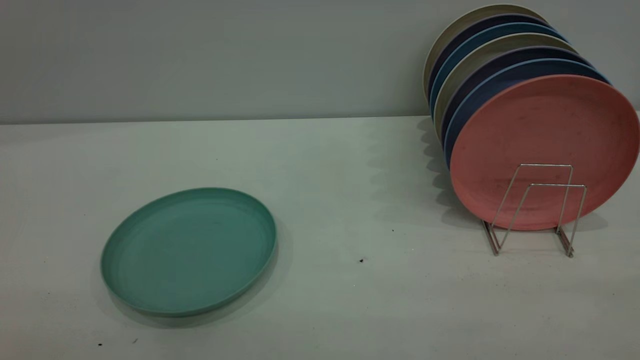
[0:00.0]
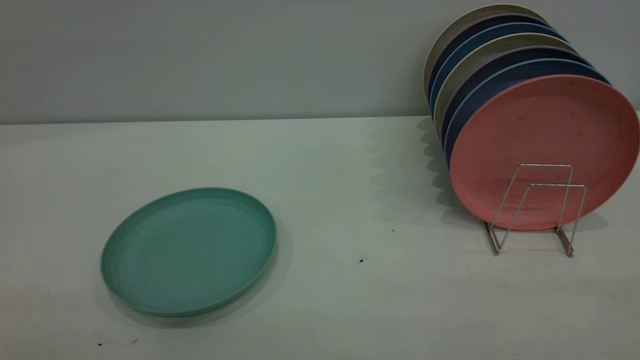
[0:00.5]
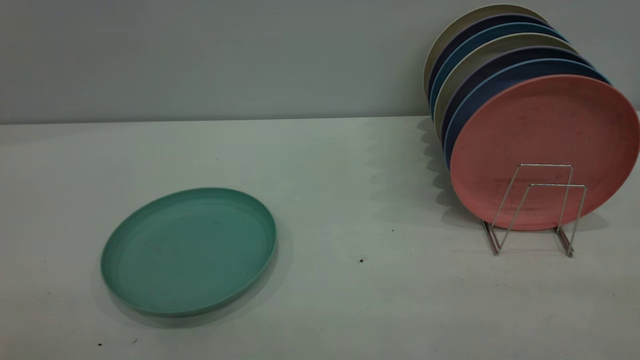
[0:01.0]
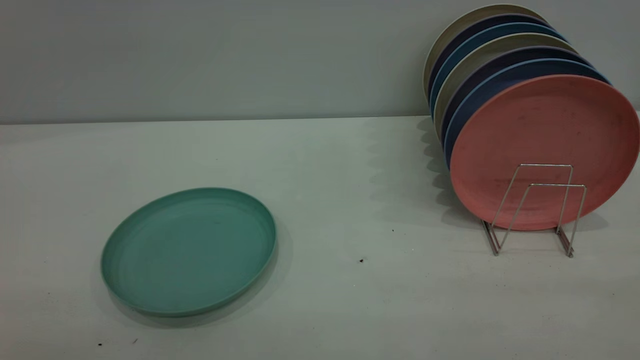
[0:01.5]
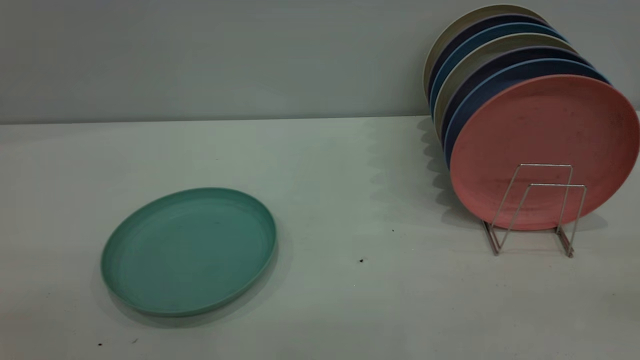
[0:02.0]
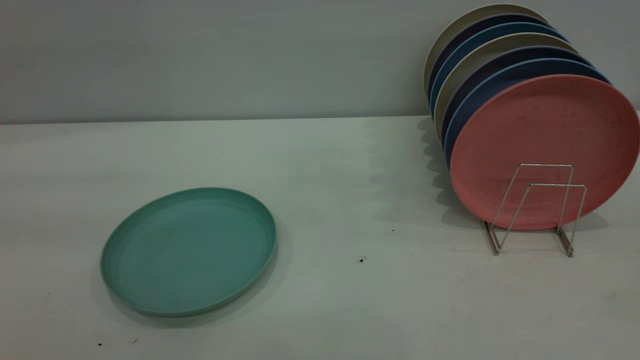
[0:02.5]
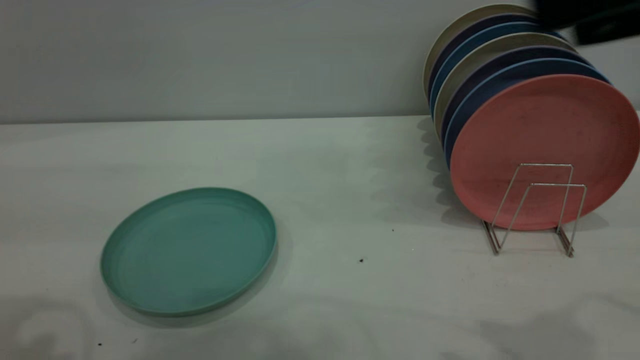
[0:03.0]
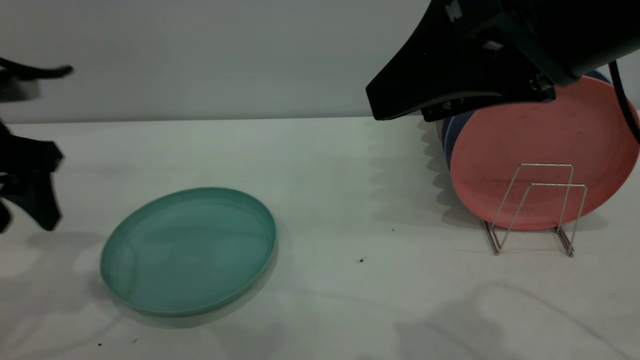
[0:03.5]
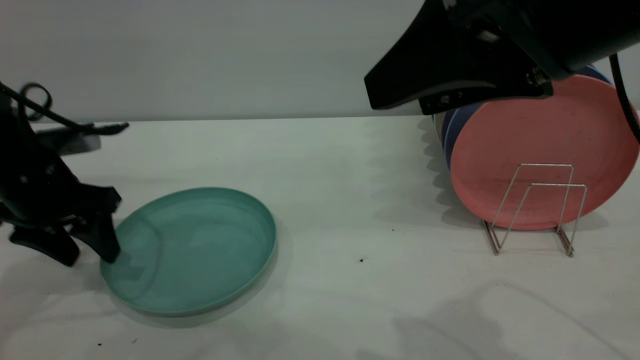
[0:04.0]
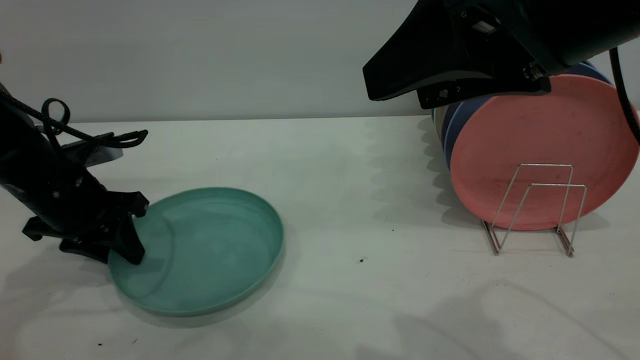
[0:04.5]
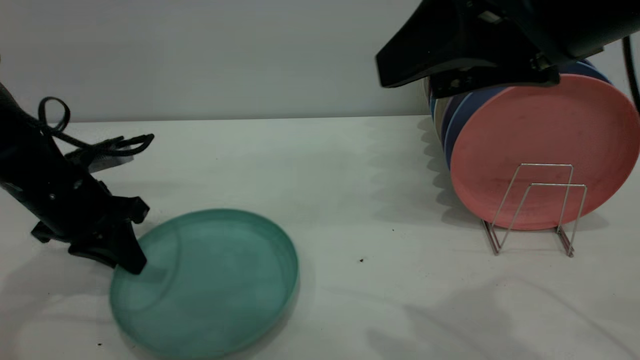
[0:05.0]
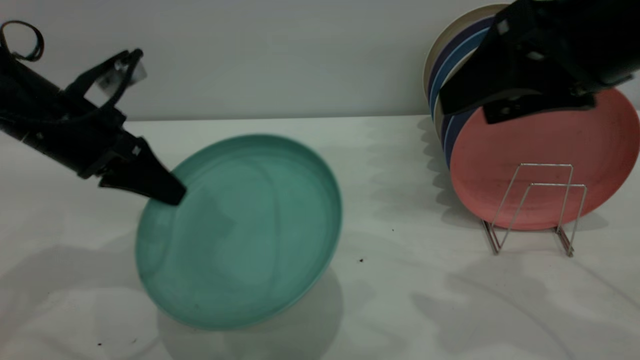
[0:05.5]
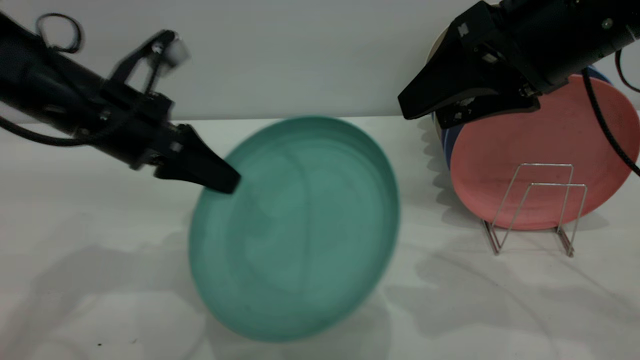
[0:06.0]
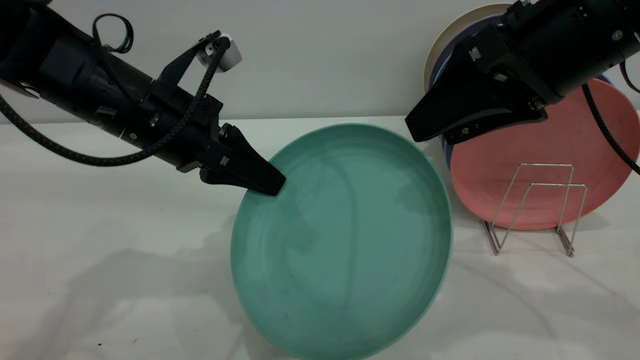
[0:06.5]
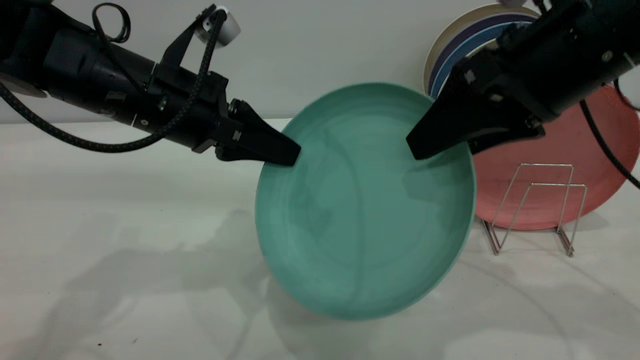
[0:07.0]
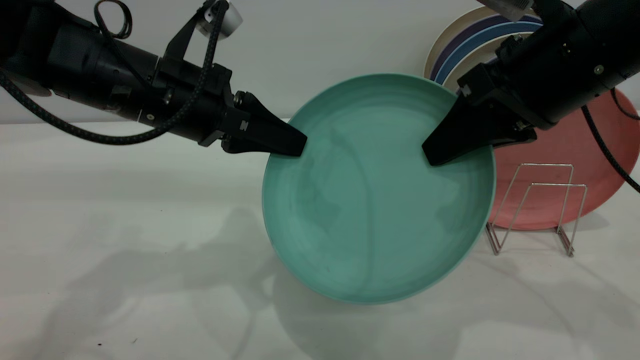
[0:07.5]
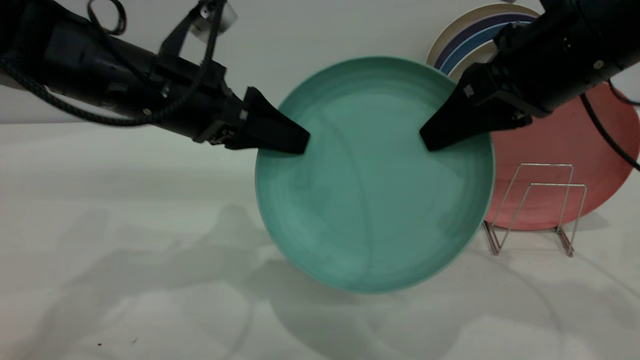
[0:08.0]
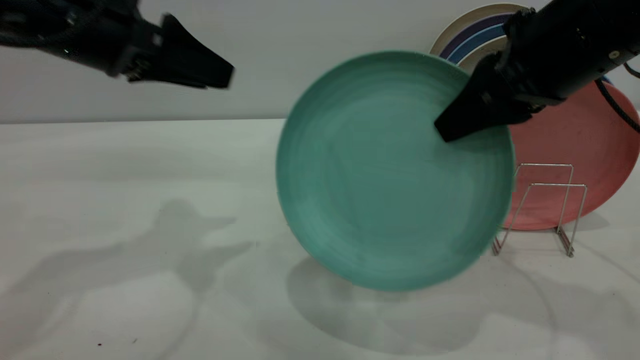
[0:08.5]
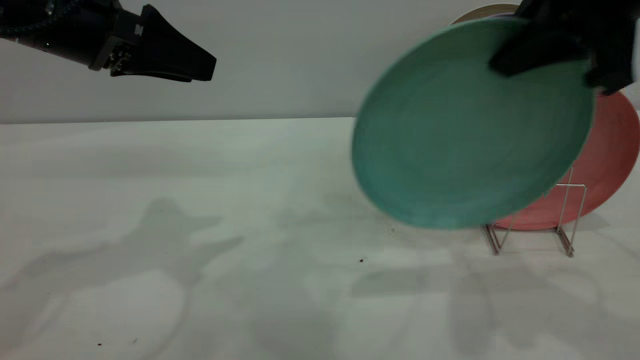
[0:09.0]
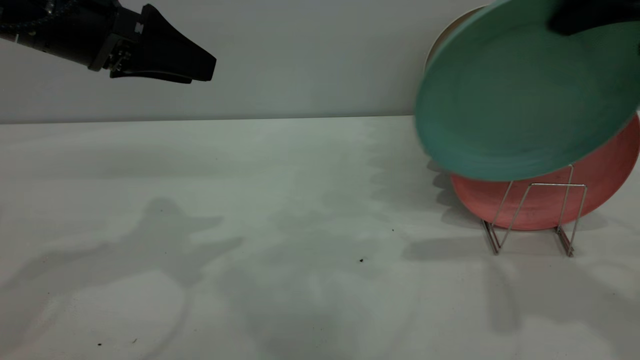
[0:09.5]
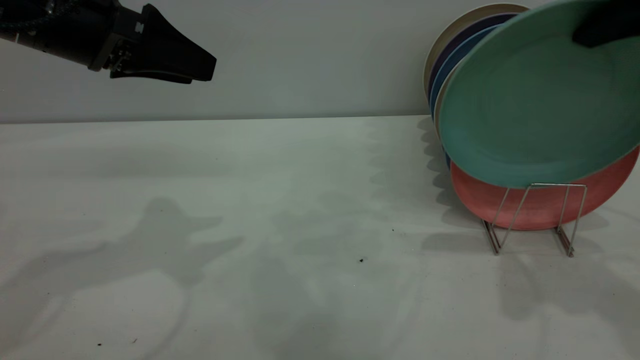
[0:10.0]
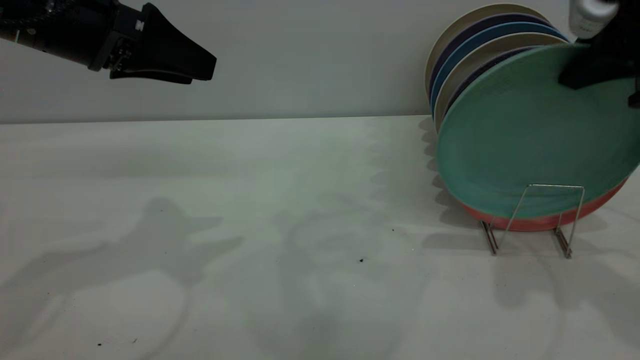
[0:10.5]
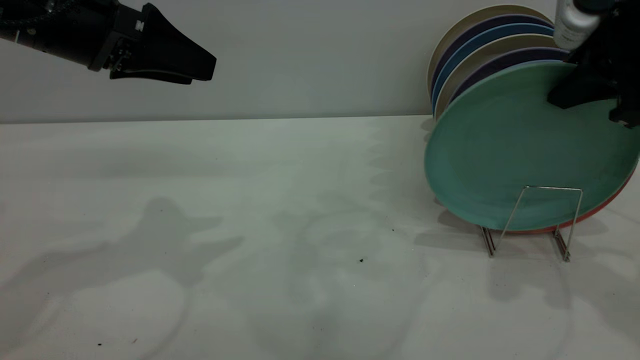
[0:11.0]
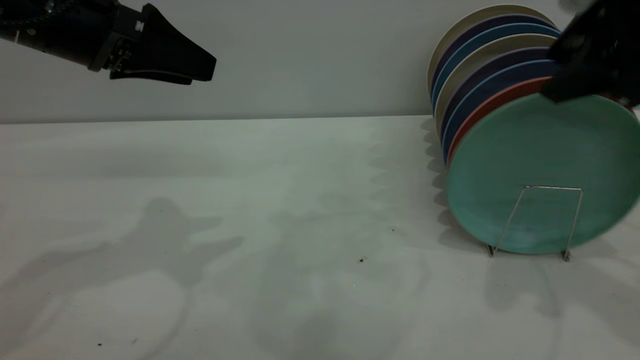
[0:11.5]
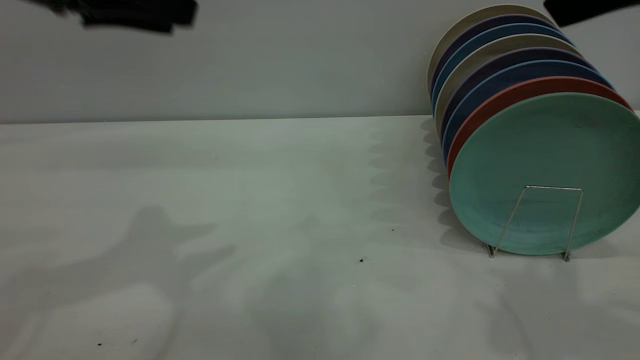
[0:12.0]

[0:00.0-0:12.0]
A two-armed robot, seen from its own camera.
Task of the whole recording: the left gripper grasp the green plate, the left gripper pass the green plate to the right gripper, and the right gripper place the green plate on the plate rack.
Step, 0:00.0 to 0:05.0: Pick up the plate with the left gripper.
Step, 0:05.5 to 0:08.0: Pass the plate from the left gripper to the right gripper.
Step, 0:08.5 to 0:11.5: Place the plate on the shelf.
0:02.0 to 0:04.0: The left gripper shifts roughly 40 cm forward and downward; the right gripper goes some 25 cm forward and to the left.
0:04.0 to 0:06.0: The left gripper travels to the right and upward by some 10 cm, and closes up. The right gripper travels forward by roughly 10 cm.
0:06.0 to 0:08.0: The left gripper opens; the right gripper closes its fingers.
0:08.0 to 0:10.0: The right gripper moves to the right and upward, approximately 10 cm; the left gripper moves to the left and upward, roughly 10 cm.
0:10.0 to 0:12.0: The left gripper heads upward, covering about 5 cm; the right gripper is displaced backward and upward by some 10 cm, and opens.

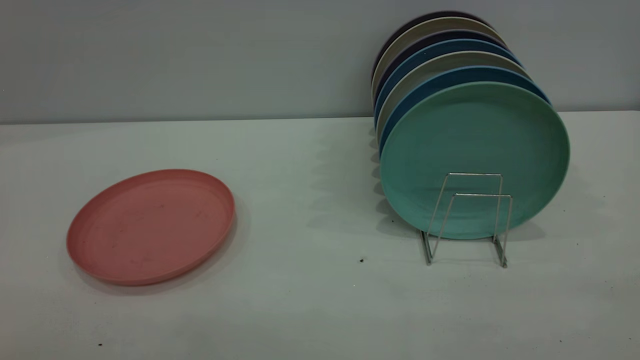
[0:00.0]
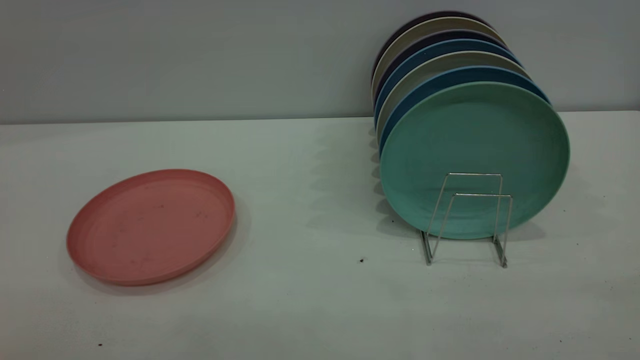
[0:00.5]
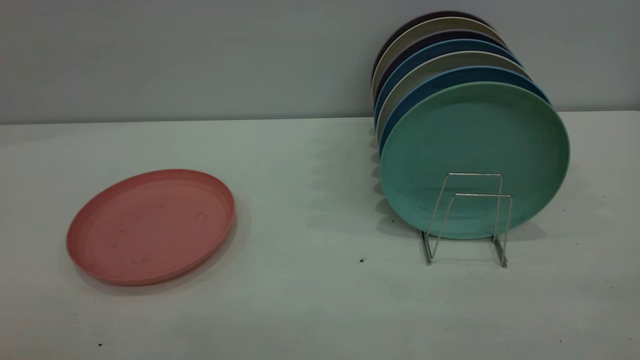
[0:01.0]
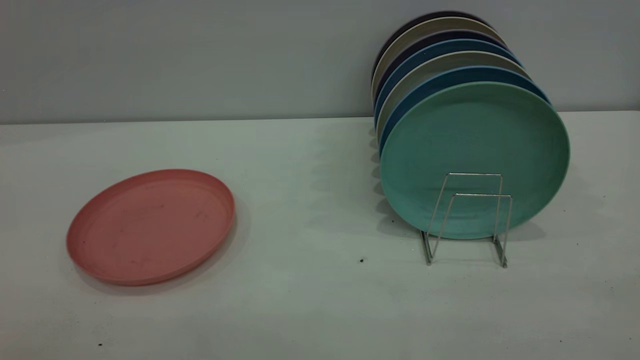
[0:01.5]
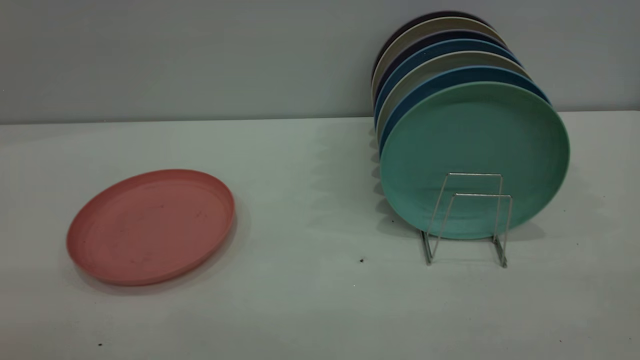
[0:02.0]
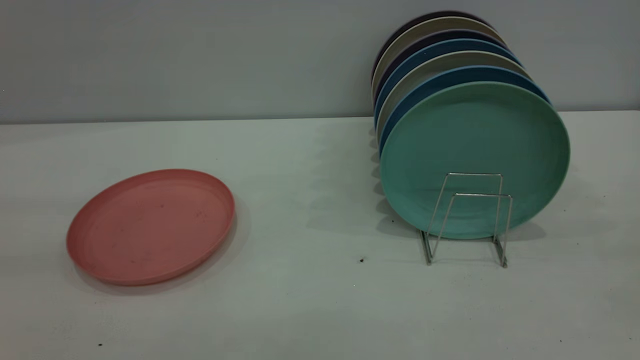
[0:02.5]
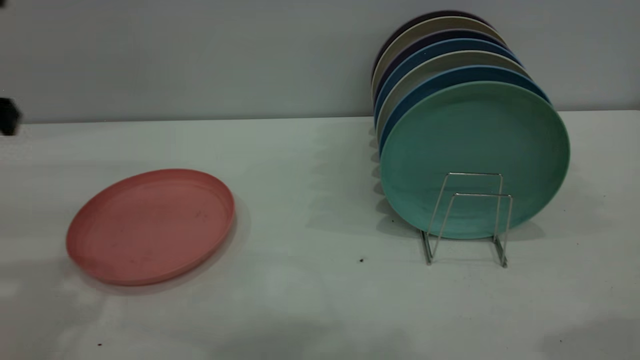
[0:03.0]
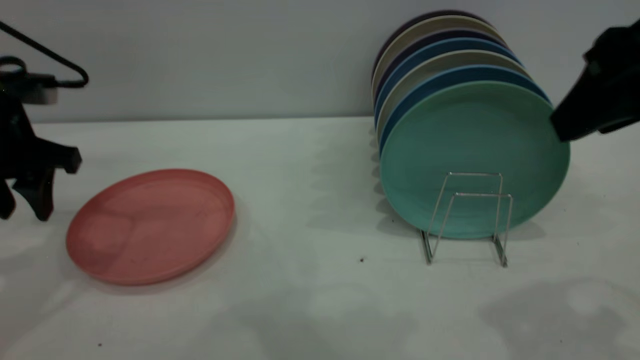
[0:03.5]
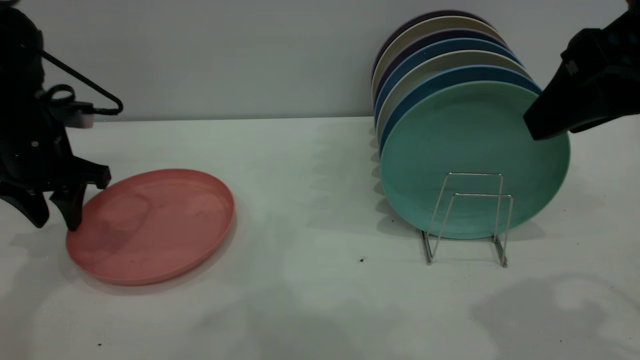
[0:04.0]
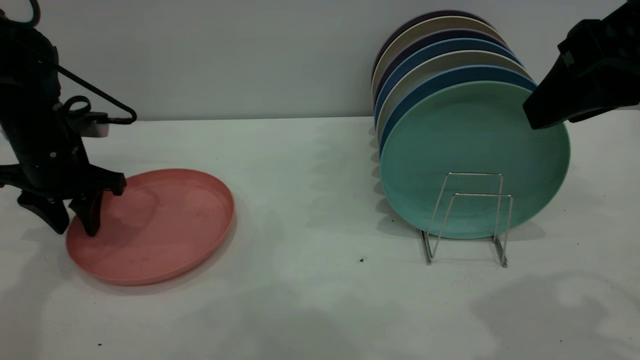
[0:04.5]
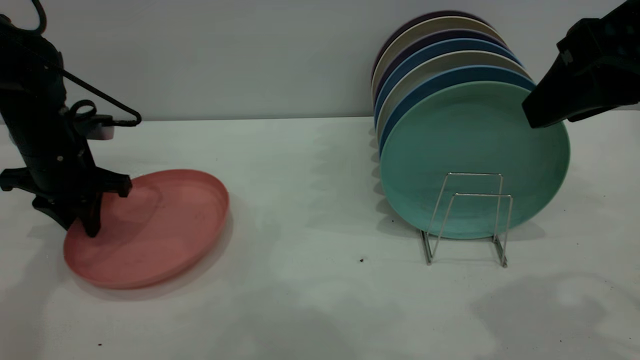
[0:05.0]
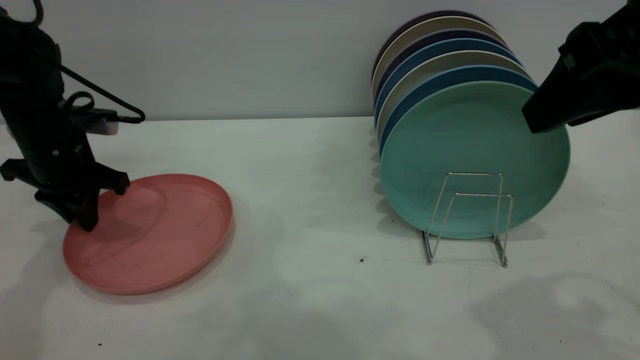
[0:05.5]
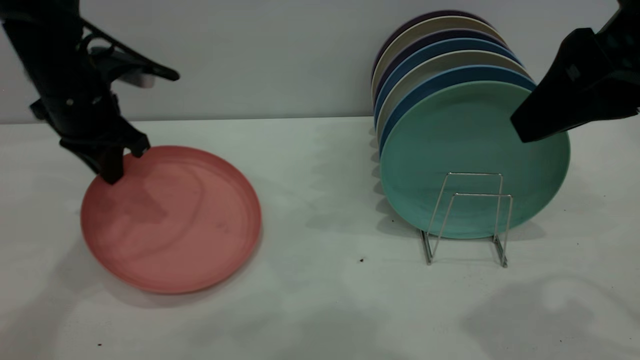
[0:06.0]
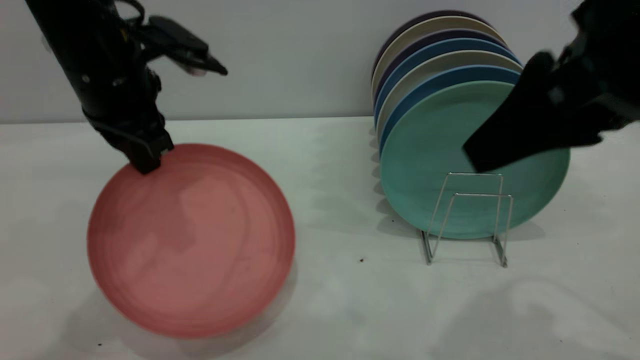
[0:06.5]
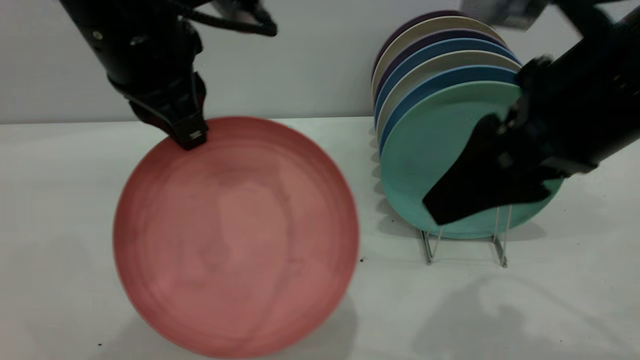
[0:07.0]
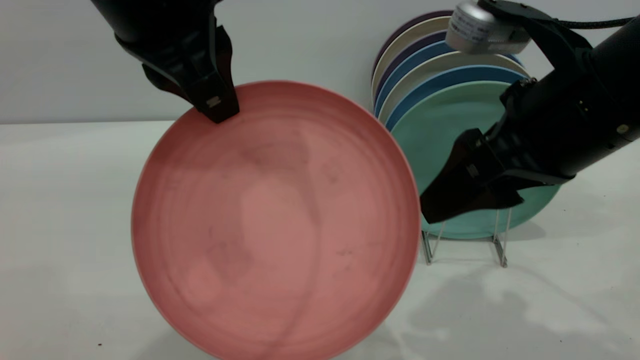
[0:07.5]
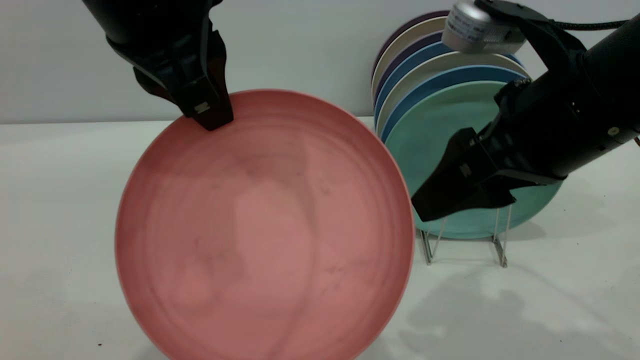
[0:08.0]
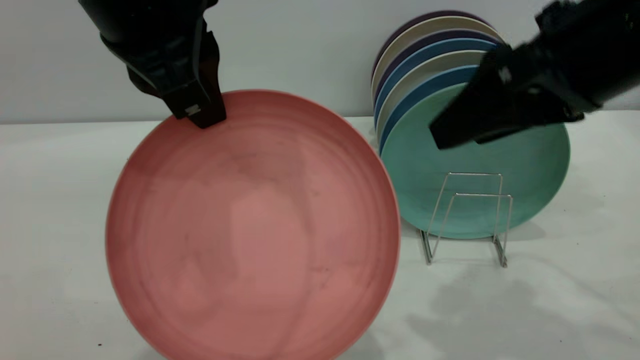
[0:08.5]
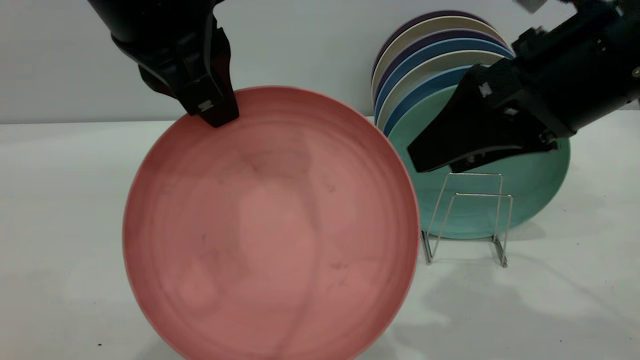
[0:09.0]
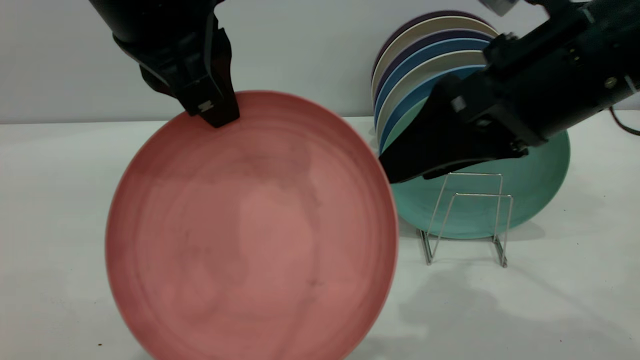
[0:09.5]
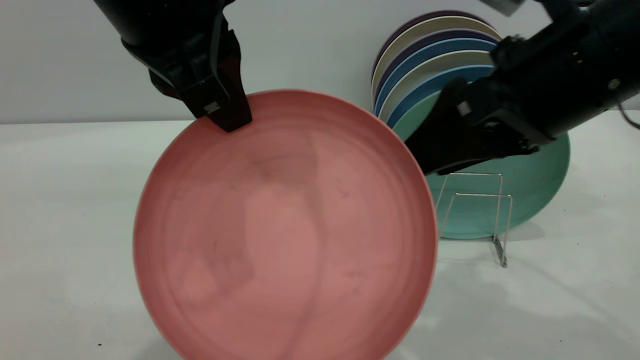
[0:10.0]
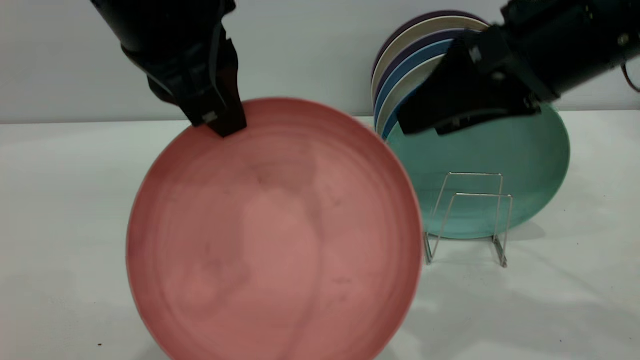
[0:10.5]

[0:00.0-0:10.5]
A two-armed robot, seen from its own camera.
Task of the whole recording: put the plate on the plate rack.
Step, 0:00.0 to 0:06.0: Pick up the plate with the left gripper.
0:02.0 to 0:04.0: The left gripper goes about 50 cm forward and downward, while the right gripper heads forward and to the left, covering some 25 cm.
0:04.0 to 0:06.5: The left gripper moves to the right and upward, some 15 cm, and closes.
0:06.5 to 0:08.5: The left gripper heads backward, upward and to the right, covering roughly 15 cm.
0:08.5 to 0:10.5: There are only small adjustments of the grippers.
